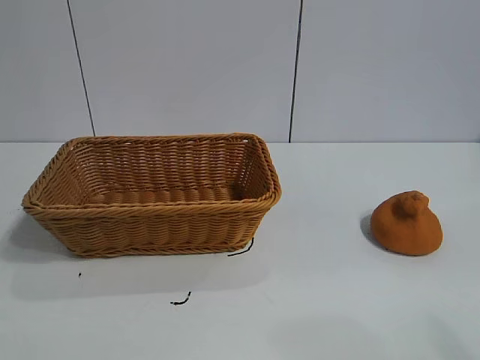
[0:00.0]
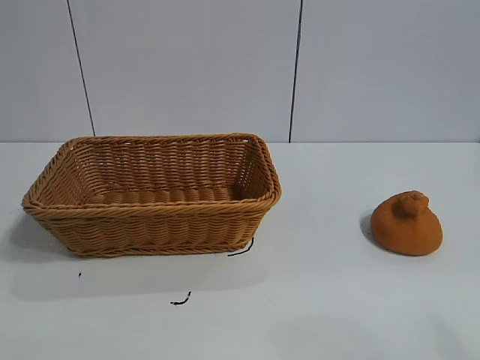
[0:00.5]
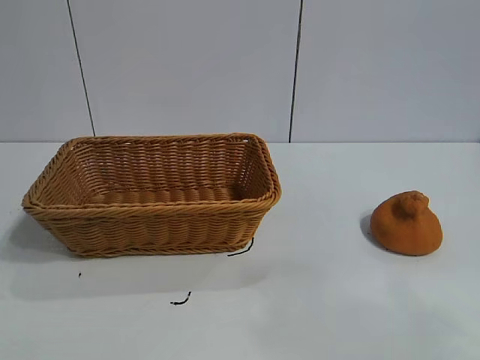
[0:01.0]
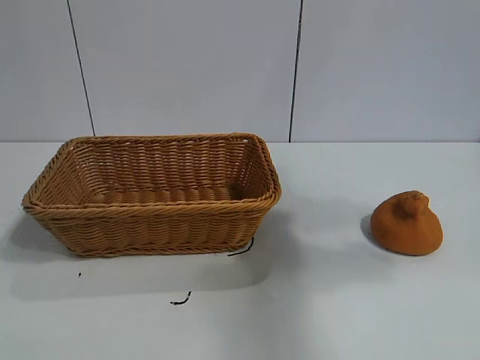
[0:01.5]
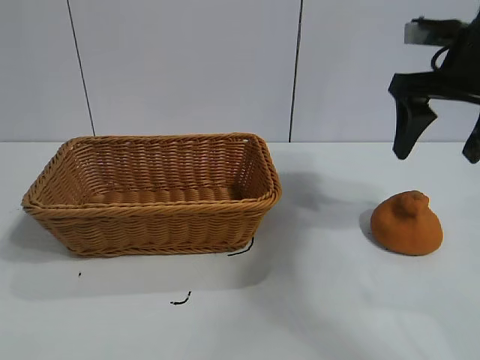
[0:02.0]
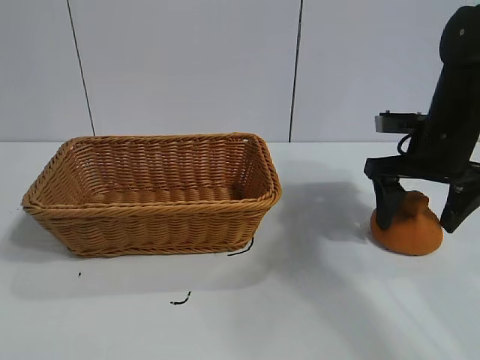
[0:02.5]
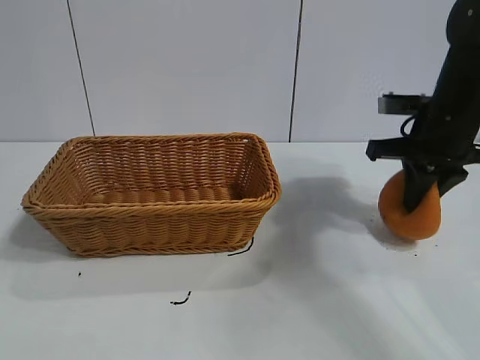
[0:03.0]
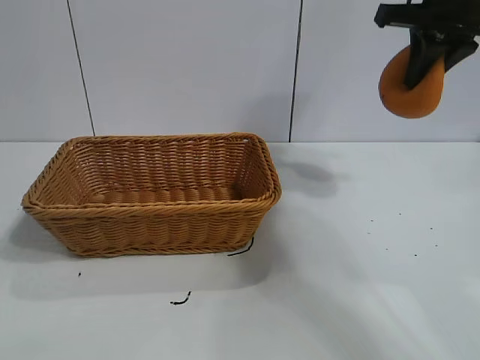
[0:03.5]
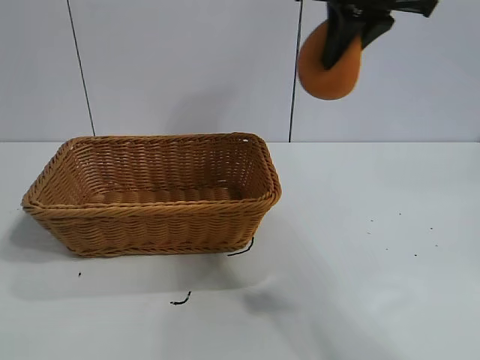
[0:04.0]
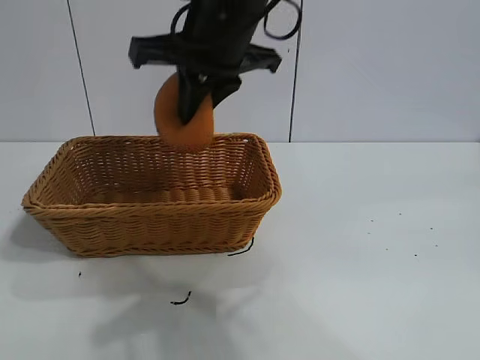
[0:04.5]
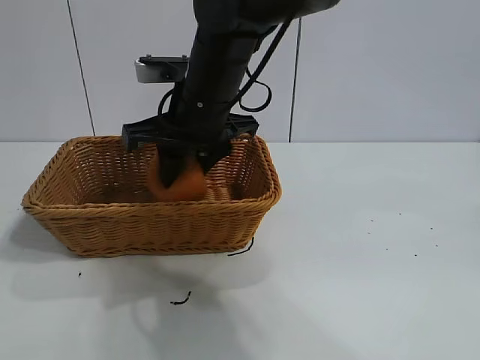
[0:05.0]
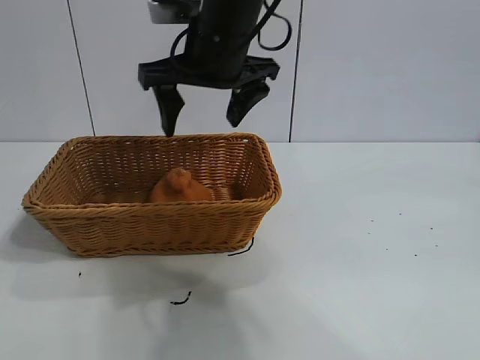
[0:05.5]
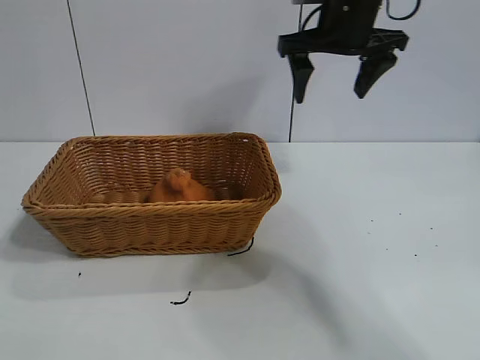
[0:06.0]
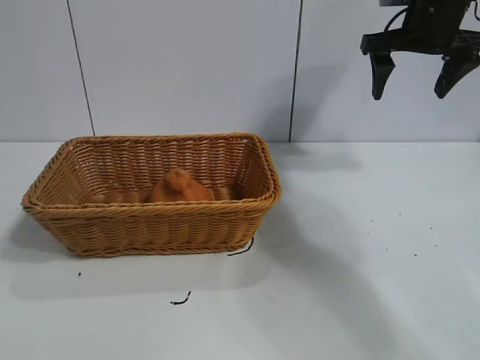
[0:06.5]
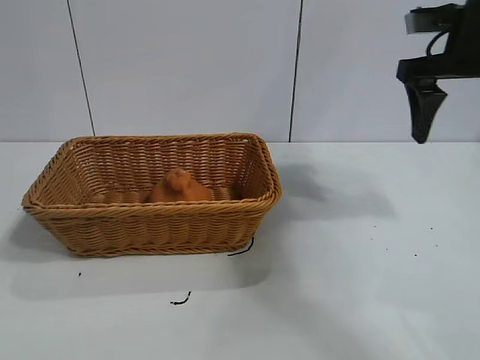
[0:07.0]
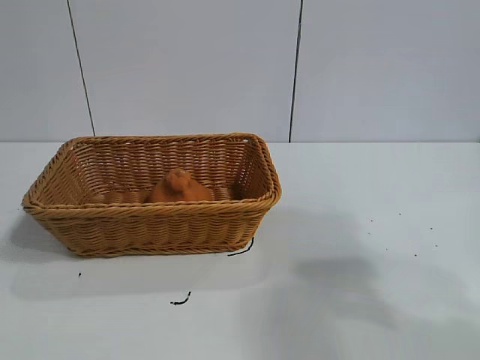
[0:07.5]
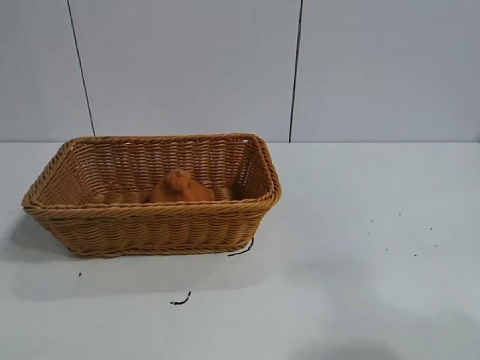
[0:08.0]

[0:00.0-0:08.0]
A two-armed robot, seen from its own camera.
Task of the whole recording: pick up the orange and put it into the basket.
Step, 0:01.0 to 0:02.5: Grasp the orange with right gripper.
Step, 0:03.5 to 0:05.0: Place the orange in the basket with right gripper.
